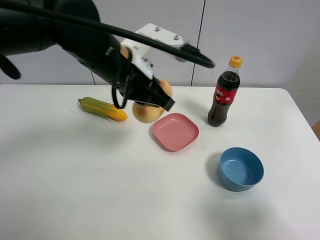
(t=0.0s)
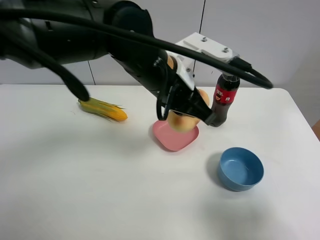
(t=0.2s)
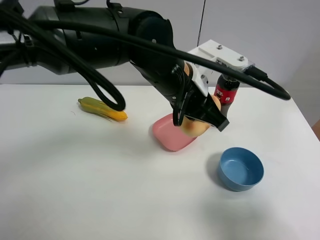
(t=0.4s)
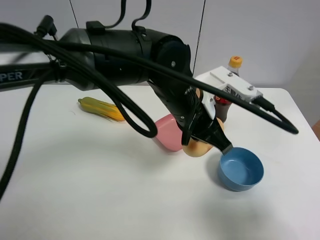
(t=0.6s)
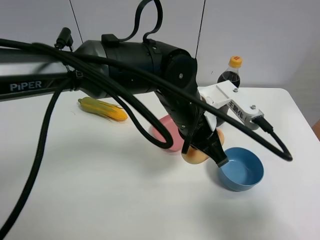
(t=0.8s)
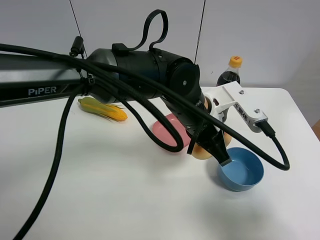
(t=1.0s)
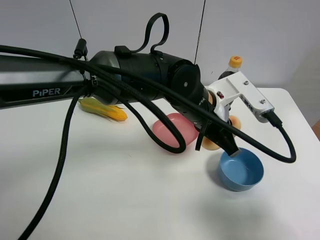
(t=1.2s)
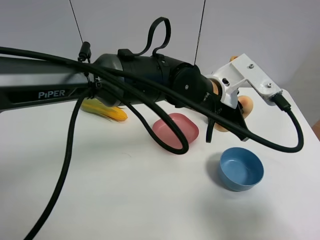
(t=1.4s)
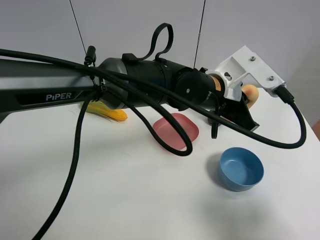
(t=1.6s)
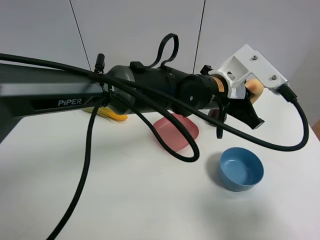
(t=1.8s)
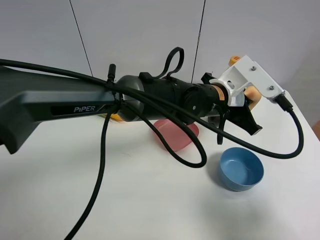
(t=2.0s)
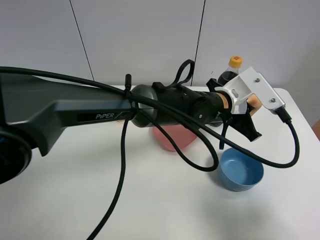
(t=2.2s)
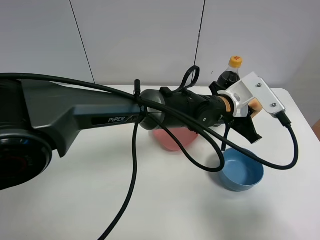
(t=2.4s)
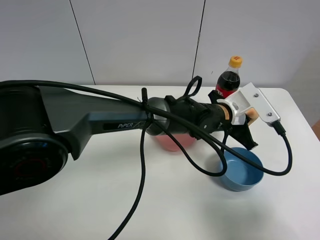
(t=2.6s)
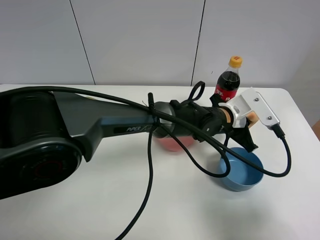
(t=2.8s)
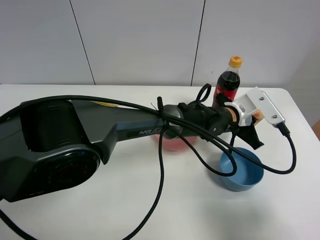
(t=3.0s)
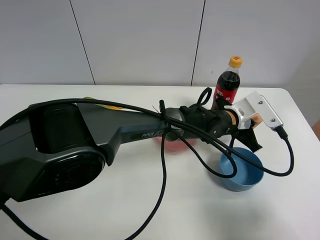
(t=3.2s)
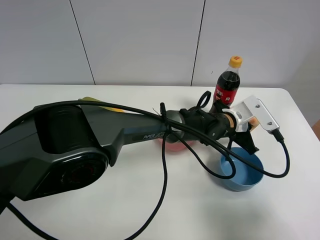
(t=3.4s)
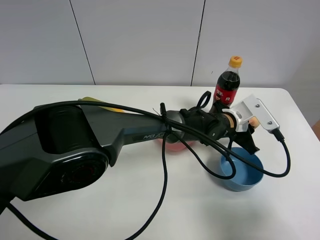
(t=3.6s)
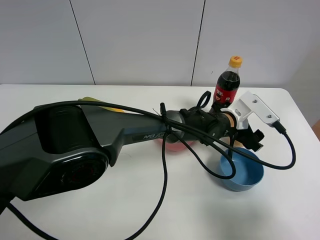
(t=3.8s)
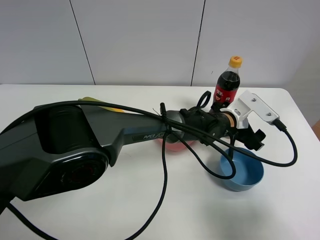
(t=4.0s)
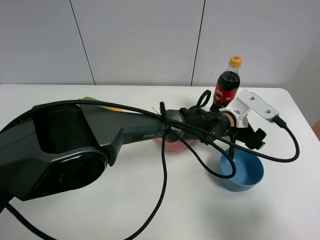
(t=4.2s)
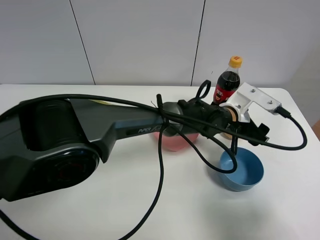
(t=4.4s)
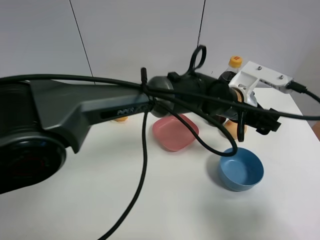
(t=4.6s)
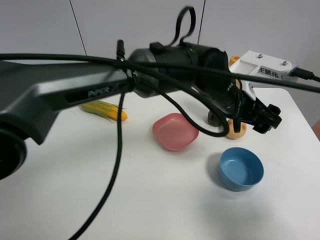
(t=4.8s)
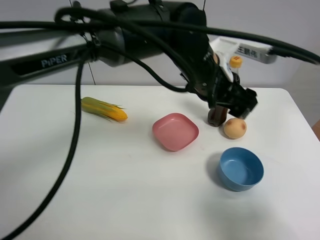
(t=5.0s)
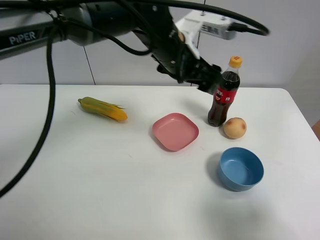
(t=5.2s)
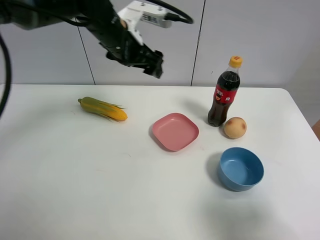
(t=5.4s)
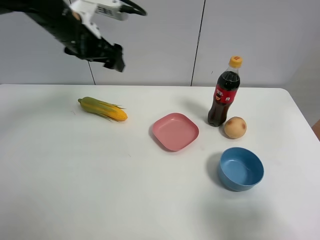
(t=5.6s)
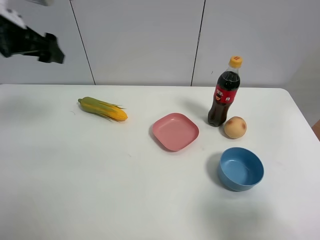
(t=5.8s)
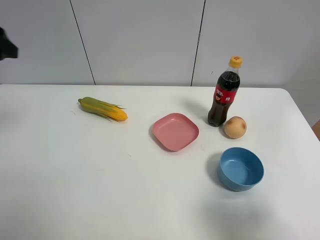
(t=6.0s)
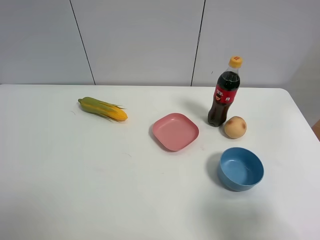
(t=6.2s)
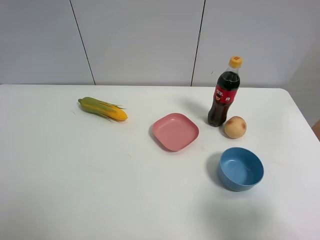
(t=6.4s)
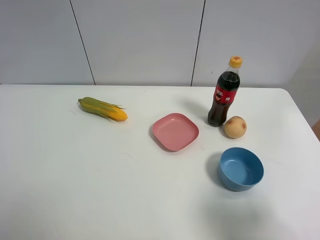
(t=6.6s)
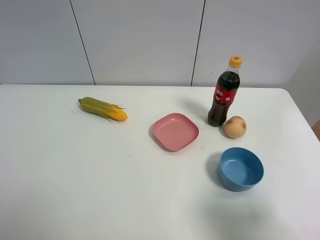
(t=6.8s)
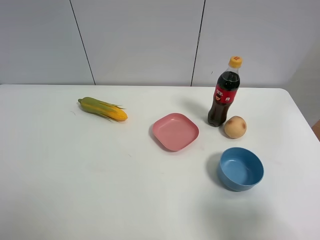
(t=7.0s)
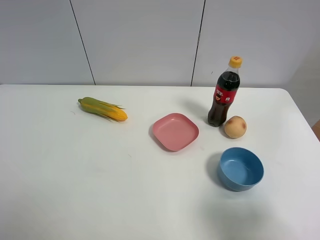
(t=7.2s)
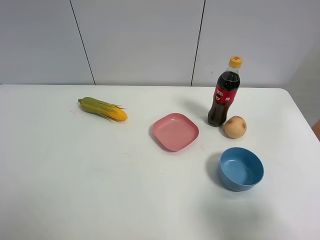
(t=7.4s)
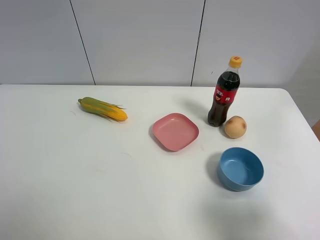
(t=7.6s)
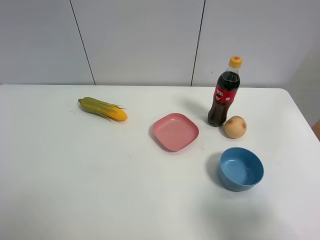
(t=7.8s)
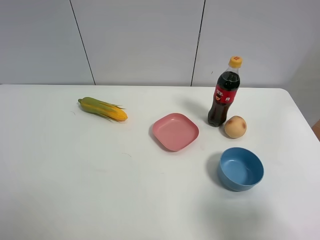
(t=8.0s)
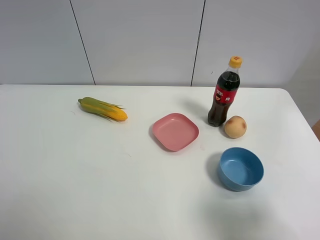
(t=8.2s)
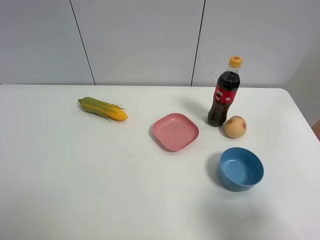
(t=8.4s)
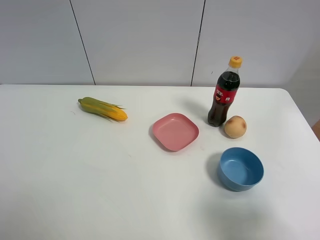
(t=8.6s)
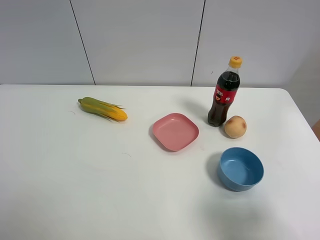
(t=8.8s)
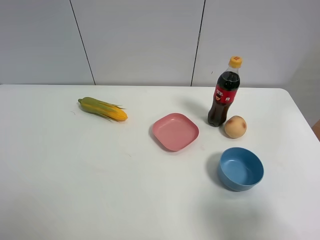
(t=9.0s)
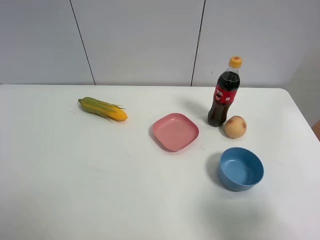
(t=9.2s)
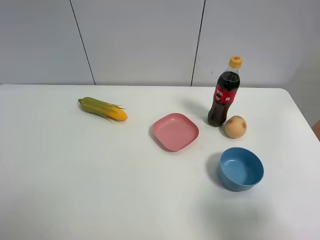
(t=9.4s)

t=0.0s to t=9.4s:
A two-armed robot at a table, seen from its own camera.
Task of the whole recording: the gripper move the object.
Step, t=0.0s to t=3.6s: Place the egg yolk pastry on the table with the left gripper.
t=0.0s to t=1.6s: The left gripper goes about 15 cm to the right and downward.
t=1.6s to t=3.2s: The left gripper travels downward and to the right by approximately 15 cm.
t=3.2s to t=4.8s: The left gripper heads upward, covering roughly 15 cm, and opens up.
t=4.8s to t=6.2s: The left gripper moves to the left, roughly 50 cm.

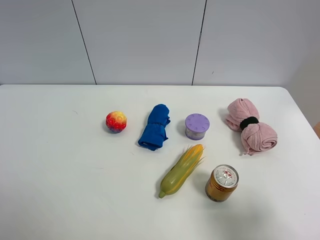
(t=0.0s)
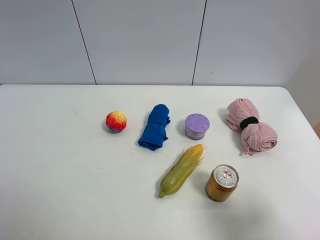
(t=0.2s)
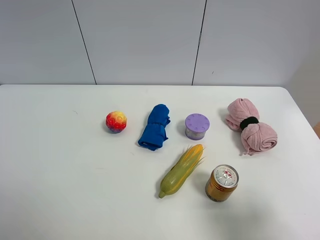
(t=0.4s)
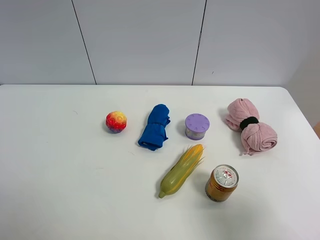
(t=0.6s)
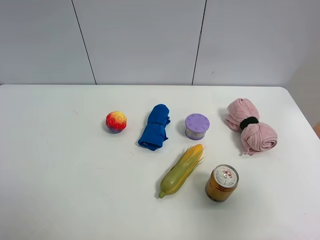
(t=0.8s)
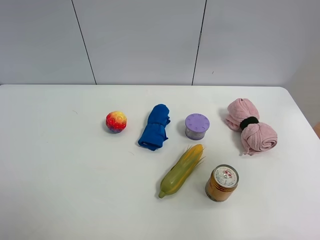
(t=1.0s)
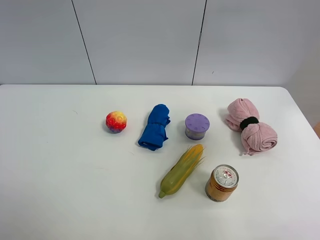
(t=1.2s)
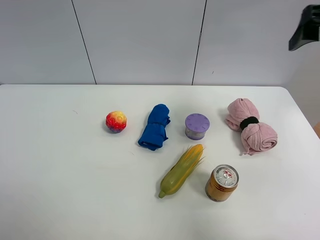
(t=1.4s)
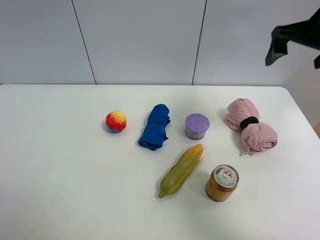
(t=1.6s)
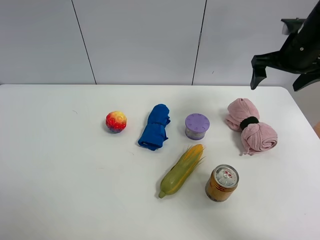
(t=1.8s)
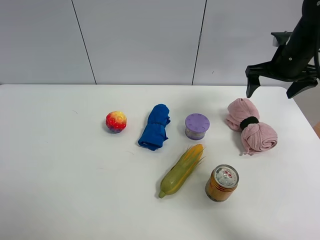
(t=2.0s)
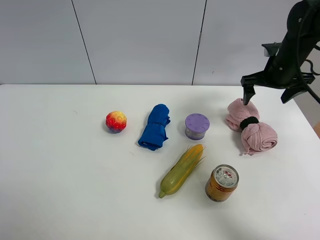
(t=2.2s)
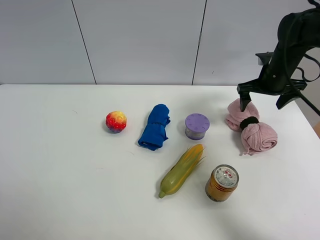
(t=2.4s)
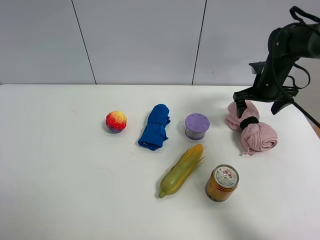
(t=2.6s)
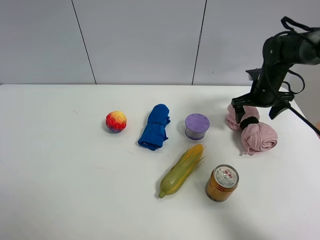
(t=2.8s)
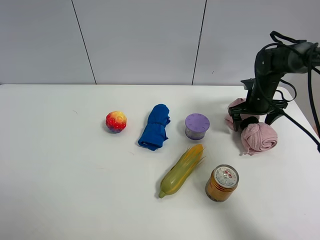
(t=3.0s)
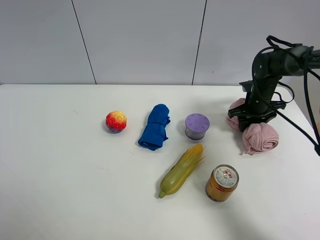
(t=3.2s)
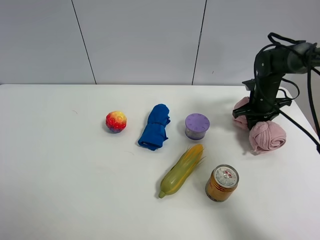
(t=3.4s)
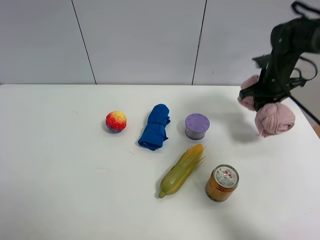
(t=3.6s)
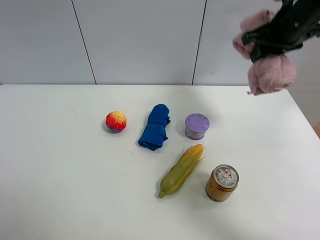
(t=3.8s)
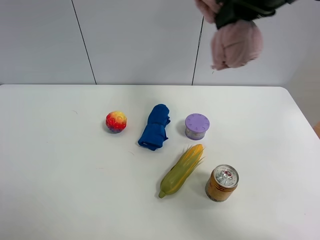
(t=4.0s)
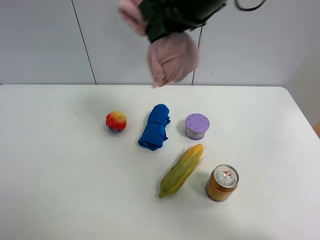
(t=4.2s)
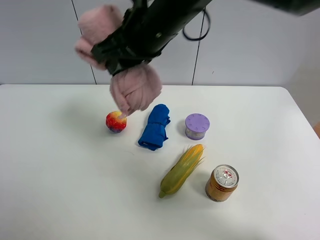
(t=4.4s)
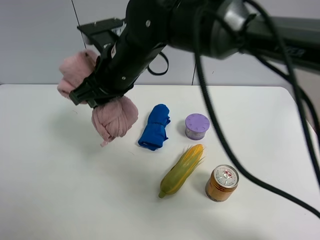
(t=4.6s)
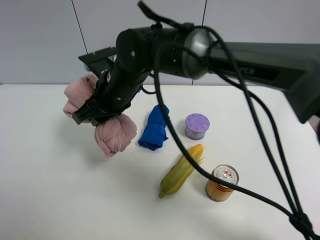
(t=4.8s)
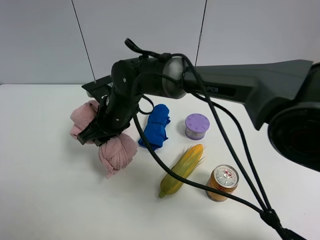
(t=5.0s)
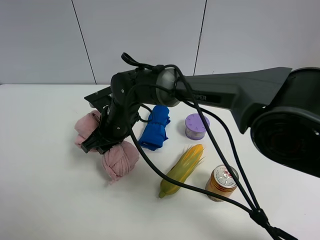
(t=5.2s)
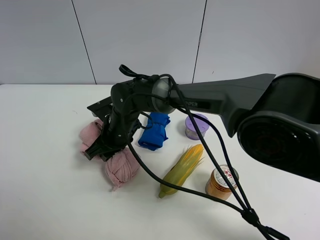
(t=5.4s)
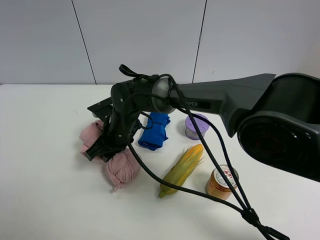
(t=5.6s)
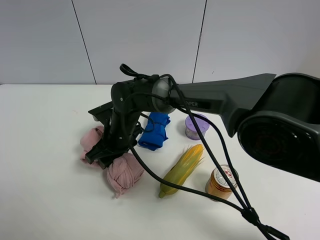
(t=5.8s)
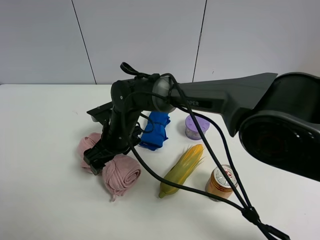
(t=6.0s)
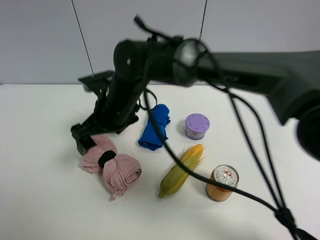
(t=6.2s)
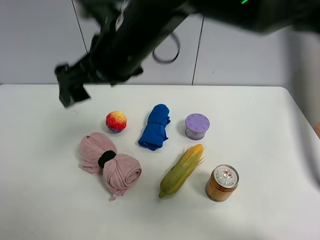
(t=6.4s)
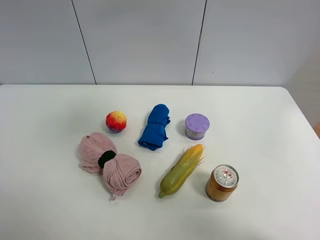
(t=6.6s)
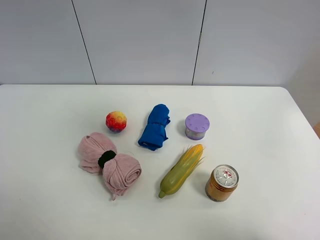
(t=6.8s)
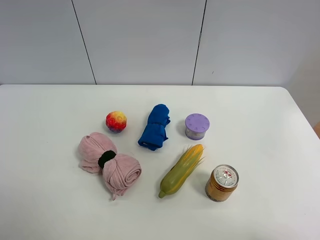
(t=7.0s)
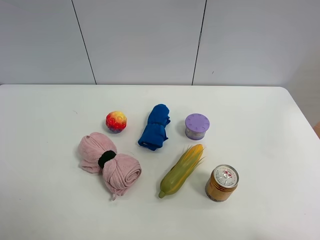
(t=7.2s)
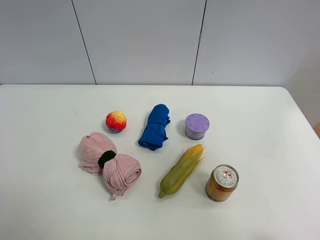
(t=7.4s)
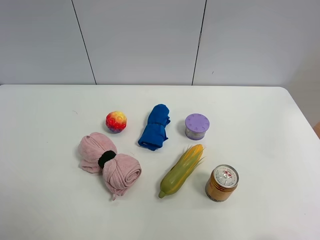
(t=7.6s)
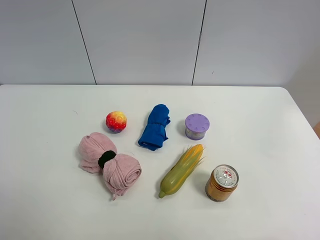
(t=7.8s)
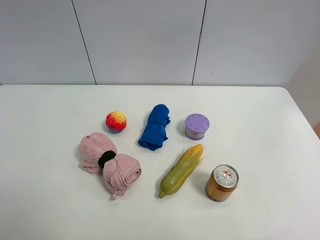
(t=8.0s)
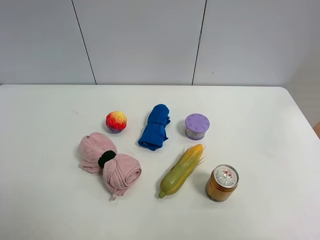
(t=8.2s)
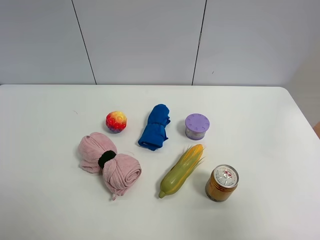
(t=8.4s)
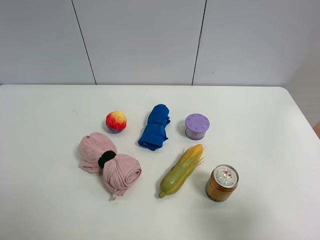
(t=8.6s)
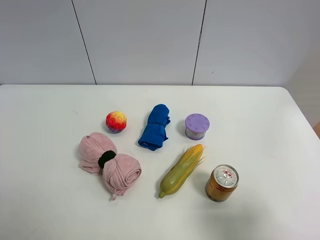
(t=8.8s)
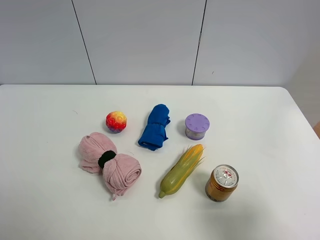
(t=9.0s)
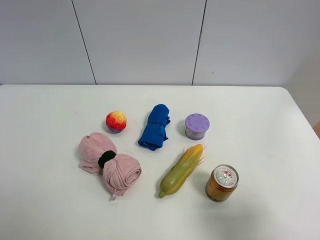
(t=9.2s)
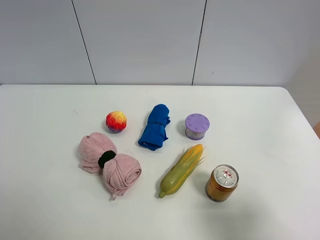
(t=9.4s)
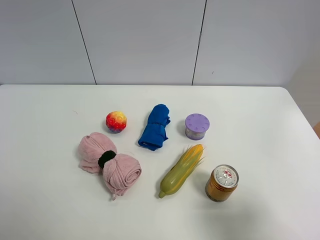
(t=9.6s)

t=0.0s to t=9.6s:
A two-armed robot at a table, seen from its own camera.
Task of the whole recording: the gripper move the object.
Step, t=0.0s to t=3.2s: Grasp the pink towel with the right gripper.
Step, t=3.4s to t=6.0s: Place the pink towel on the table with the right gripper.
t=0.0s to t=1.6s: The right gripper travels forward by about 35 cm.
t=1.6s to t=3.2s: The right gripper is displaced downward and forward by approximately 25 cm, and closes.
t=3.2s to t=4.8s: The right gripper shifts some 35 cm to the left.
t=4.8s to t=6.4s: The right gripper travels upward by roughly 15 cm, and opens its fingers.
t=6.4s to t=8.0s: The right gripper moves backward and to the right, roughly 50 cm.
t=8.0s to t=9.6s: The right gripper heads downward and forward, covering about 30 cm.

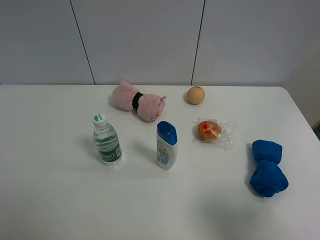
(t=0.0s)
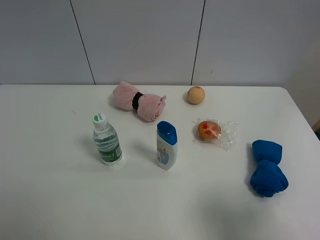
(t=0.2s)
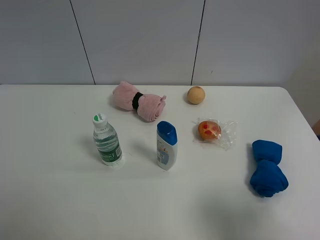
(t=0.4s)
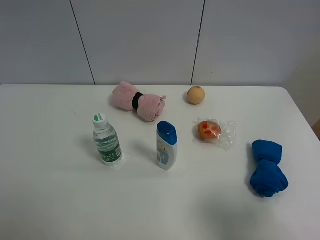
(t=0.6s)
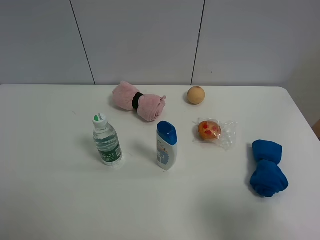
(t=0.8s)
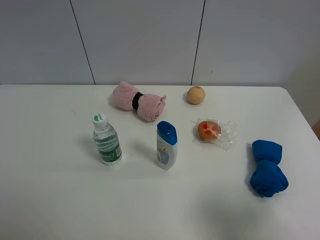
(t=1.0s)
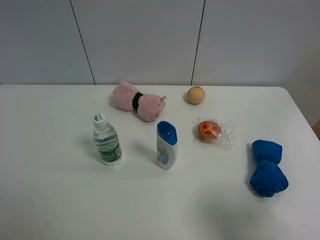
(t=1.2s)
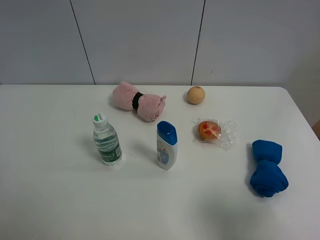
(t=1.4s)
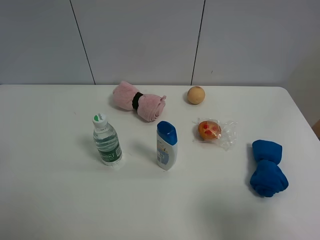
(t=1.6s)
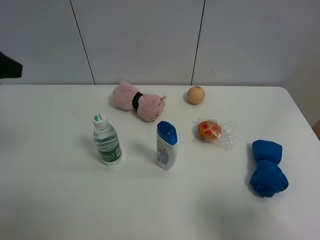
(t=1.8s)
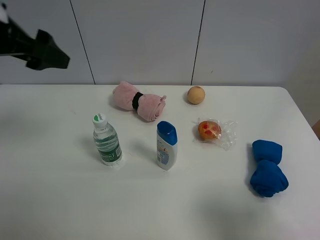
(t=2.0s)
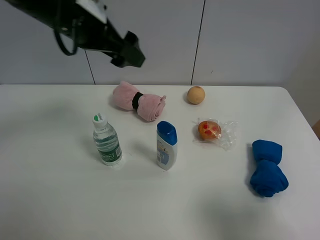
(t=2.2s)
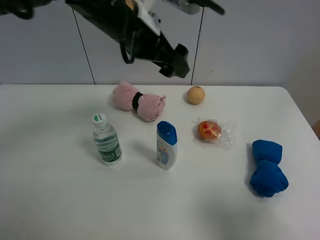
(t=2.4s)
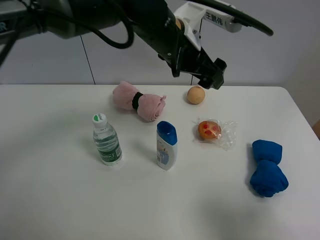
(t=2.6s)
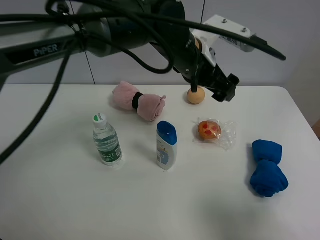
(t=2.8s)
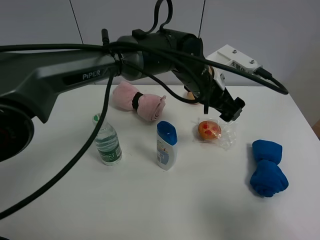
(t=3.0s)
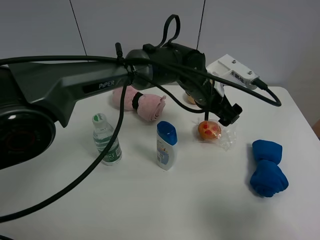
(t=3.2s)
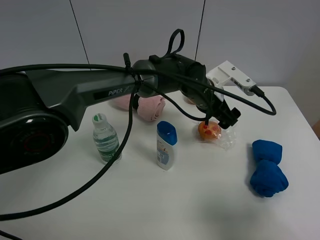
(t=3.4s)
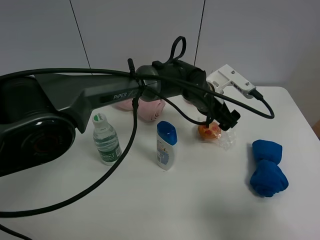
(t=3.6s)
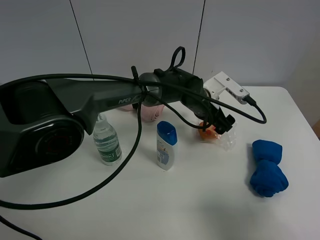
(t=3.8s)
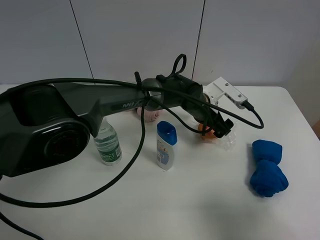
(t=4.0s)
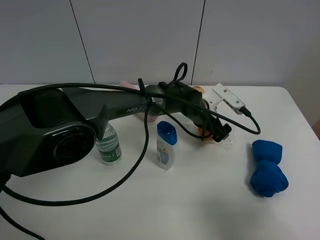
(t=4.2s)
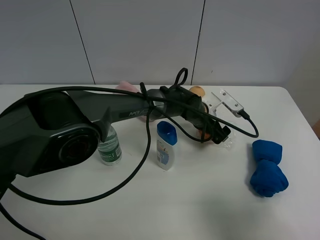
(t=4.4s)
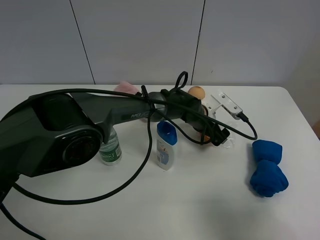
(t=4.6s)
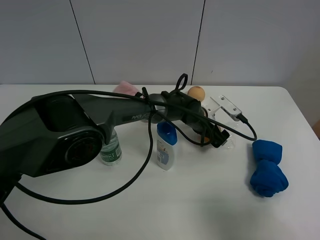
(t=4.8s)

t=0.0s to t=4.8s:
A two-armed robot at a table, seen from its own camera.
Task of the whole recording: the gripper move the object.
t=1.6s to t=3.2s: The left gripper shifts roughly 50 cm to the right and forward.
t=3.2s to t=4.8s: The left gripper is displaced downward by some 10 cm.
